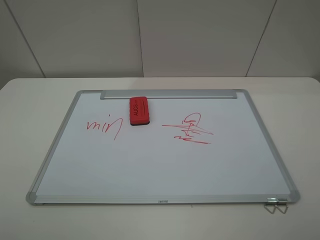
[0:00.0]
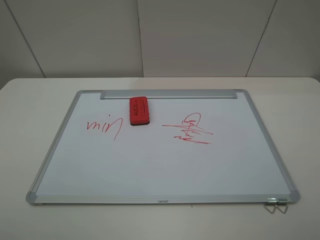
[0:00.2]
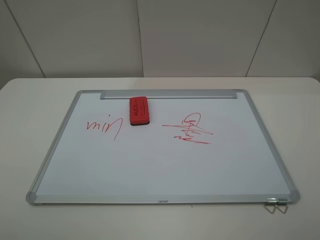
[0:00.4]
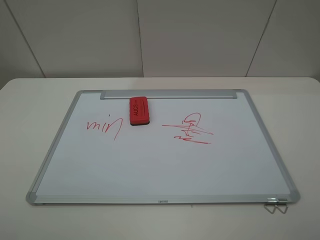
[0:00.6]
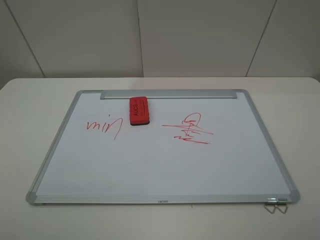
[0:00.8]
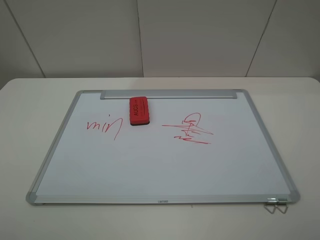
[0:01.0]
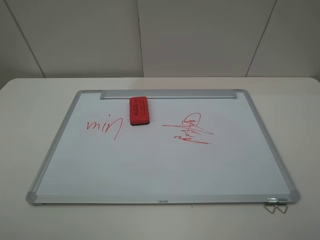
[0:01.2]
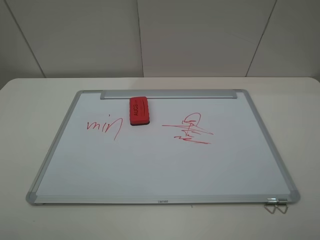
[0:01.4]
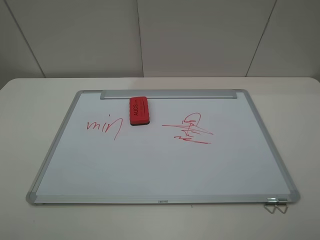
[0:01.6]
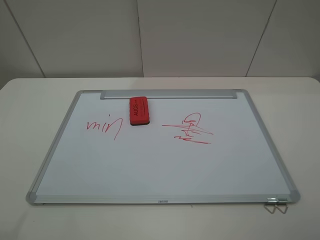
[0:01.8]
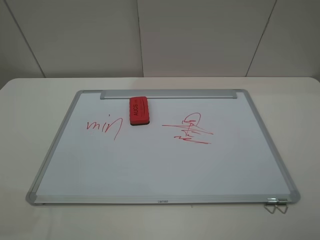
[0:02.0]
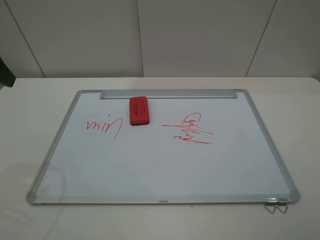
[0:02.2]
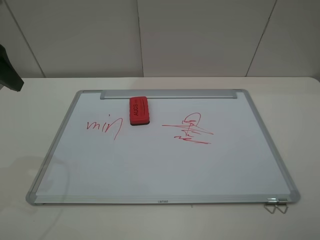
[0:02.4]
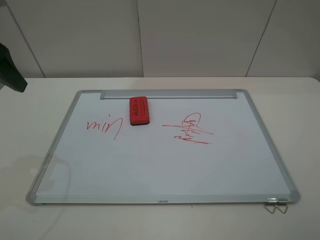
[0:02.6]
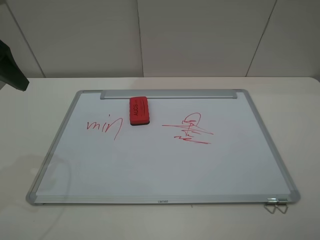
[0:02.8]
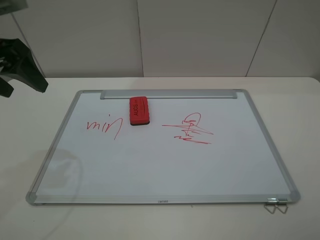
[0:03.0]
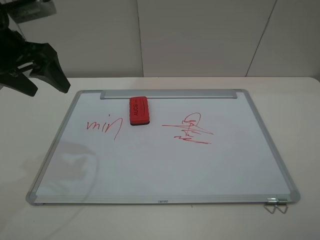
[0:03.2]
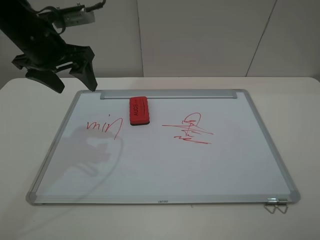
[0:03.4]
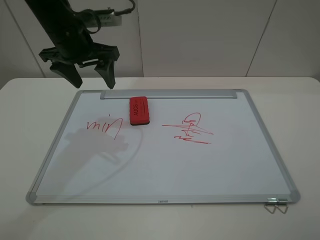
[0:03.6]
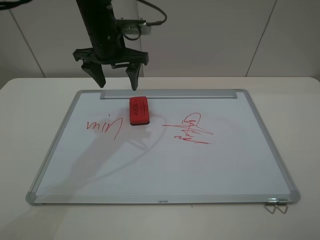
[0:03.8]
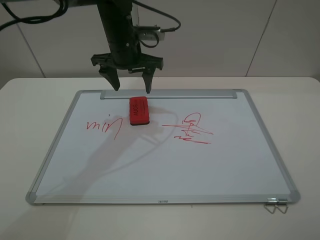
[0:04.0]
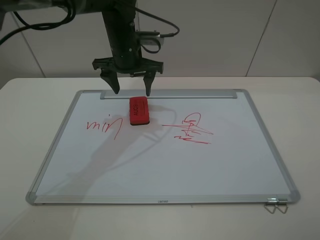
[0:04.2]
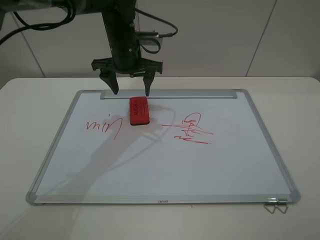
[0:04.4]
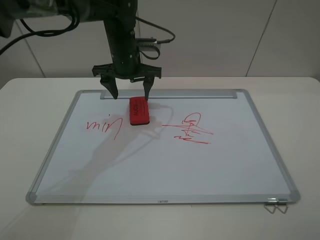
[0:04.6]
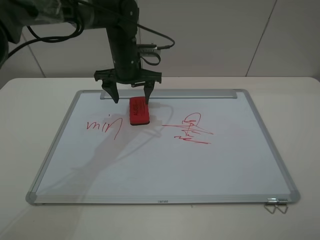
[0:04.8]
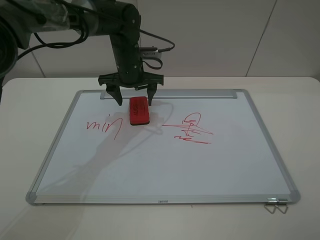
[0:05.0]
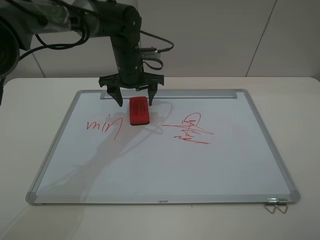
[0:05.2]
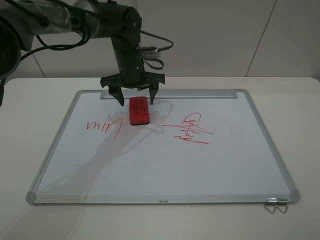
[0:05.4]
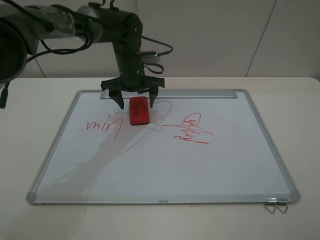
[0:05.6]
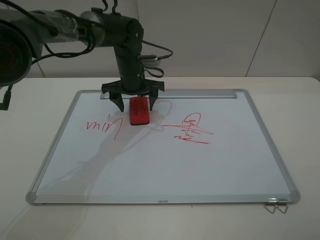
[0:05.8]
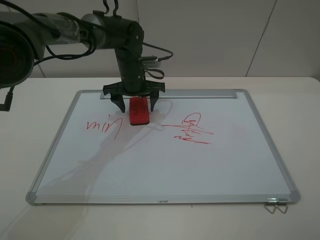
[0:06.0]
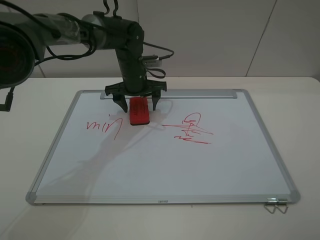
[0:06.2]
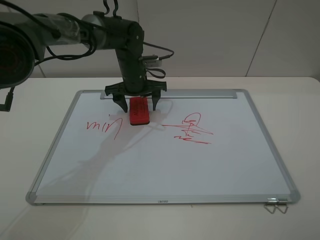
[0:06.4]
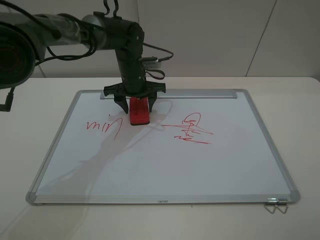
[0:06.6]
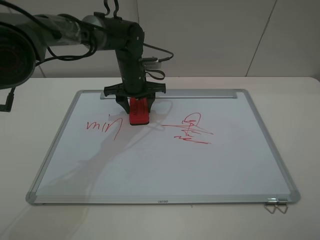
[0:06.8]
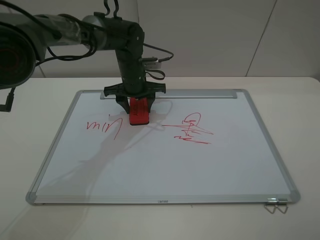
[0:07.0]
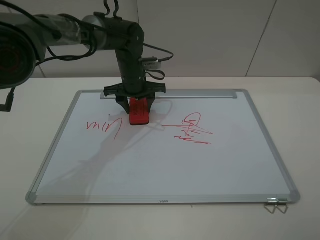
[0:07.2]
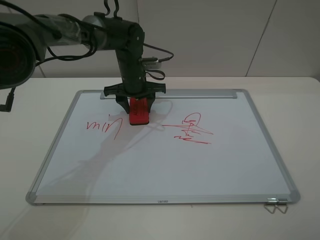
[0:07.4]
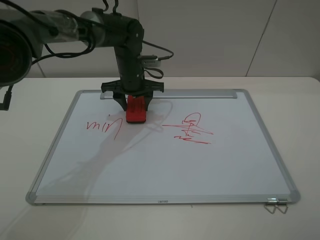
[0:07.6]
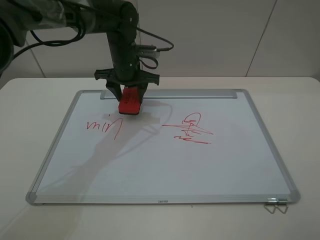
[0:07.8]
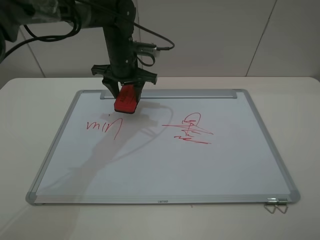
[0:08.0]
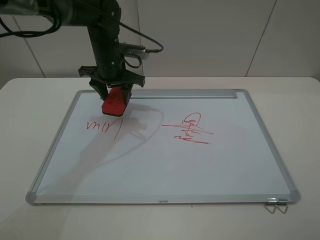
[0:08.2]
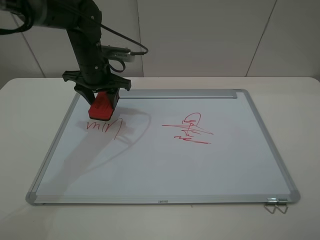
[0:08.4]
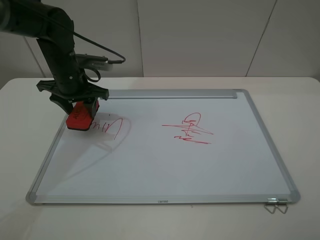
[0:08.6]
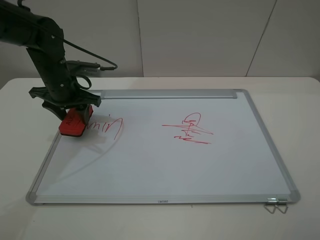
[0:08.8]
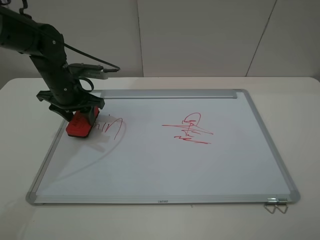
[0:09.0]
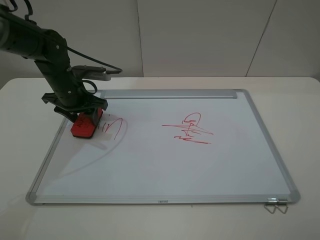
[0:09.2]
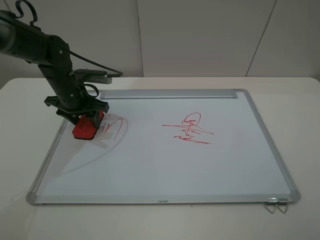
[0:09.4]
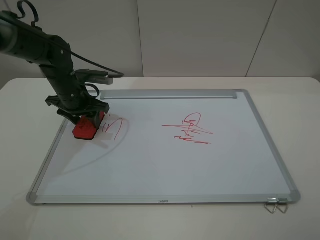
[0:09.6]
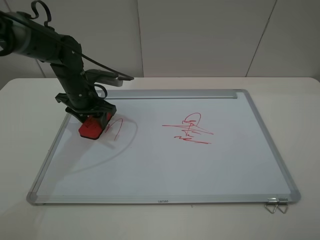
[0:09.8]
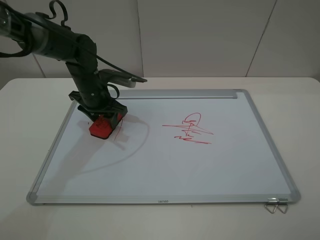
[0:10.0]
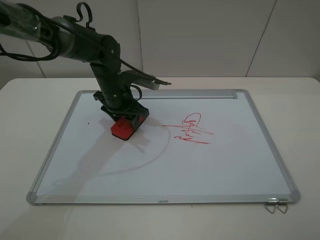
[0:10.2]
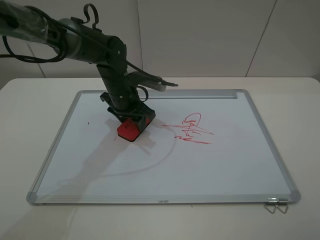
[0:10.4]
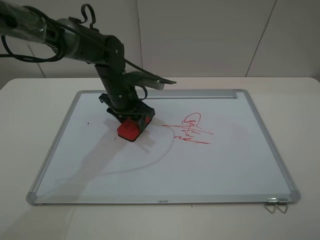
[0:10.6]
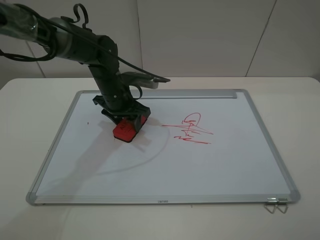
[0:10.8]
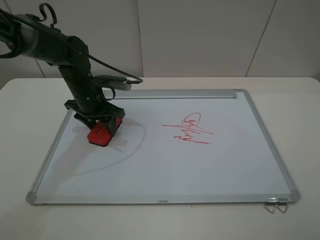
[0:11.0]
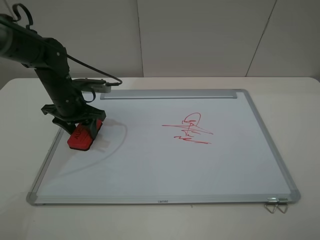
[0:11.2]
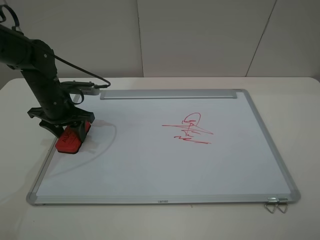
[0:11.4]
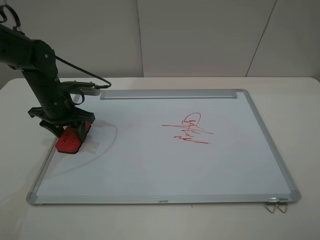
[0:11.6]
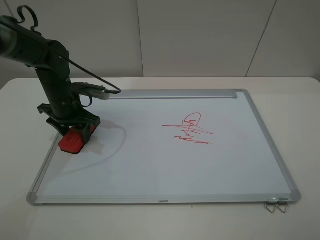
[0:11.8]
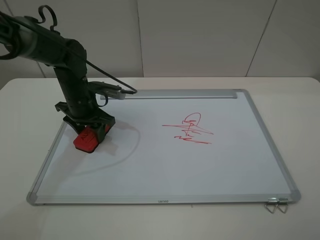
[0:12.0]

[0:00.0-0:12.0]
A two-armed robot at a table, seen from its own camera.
Step, 0:00.0 to 0:06.8: Grasp the eraser with the left gripper.
0:01.6 to 0:03.0: The left gripper travels forward by approximately 20 cm.
0:03.0 to 0:04.4: The left gripper heads to the right, forward and downward, covering roughly 25 cm.
0:04.4 to 0:06.0: The left gripper shifts some 10 cm downward.
0:06.0 to 0:07.6: The left gripper closes.
0:07.6 to 0:09.0: The left gripper shifts roughly 15 cm to the left and backward.
0:09.0 to 0:10.4: The left gripper goes some 10 cm to the right.
0:10.4 to 0:12.0: The left gripper shifts about 10 cm to the left.

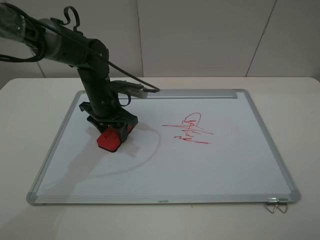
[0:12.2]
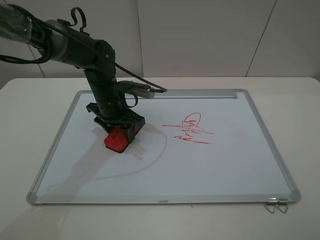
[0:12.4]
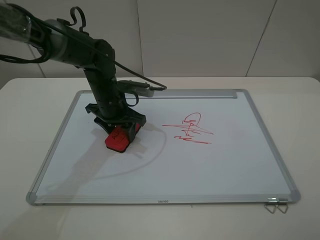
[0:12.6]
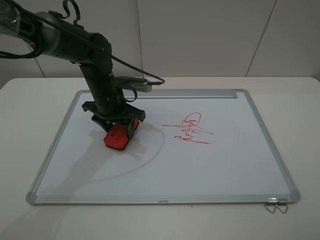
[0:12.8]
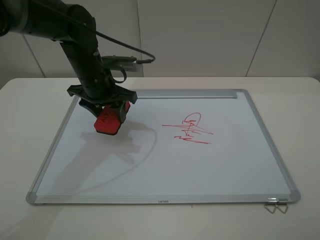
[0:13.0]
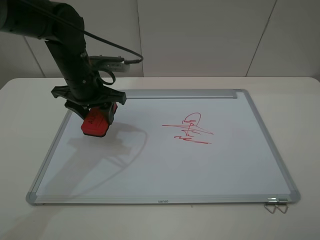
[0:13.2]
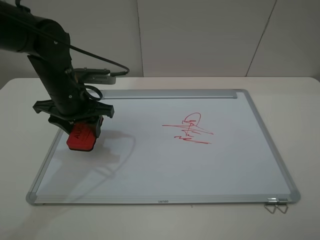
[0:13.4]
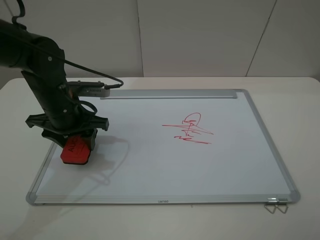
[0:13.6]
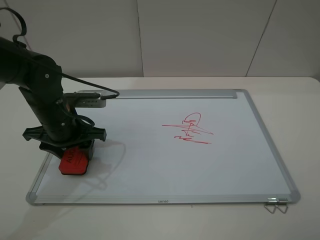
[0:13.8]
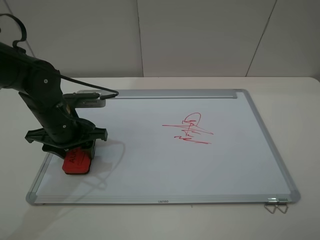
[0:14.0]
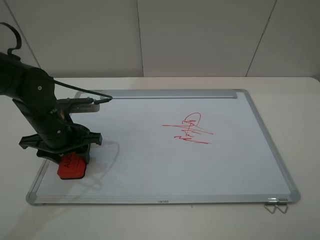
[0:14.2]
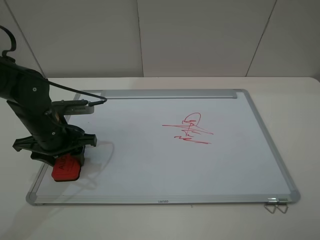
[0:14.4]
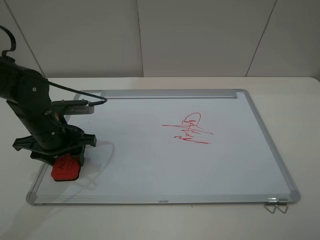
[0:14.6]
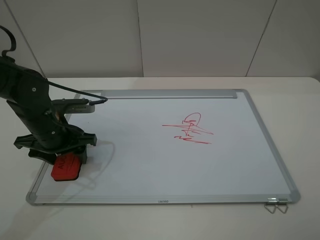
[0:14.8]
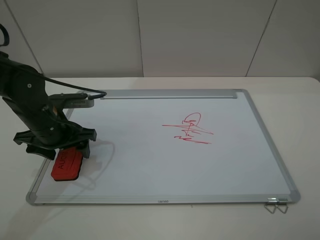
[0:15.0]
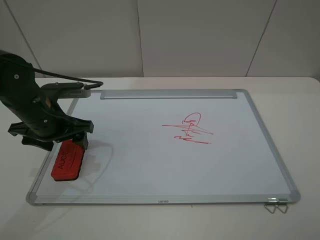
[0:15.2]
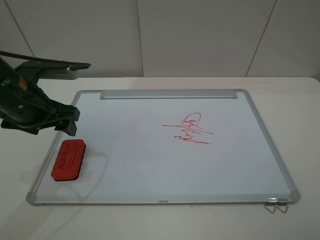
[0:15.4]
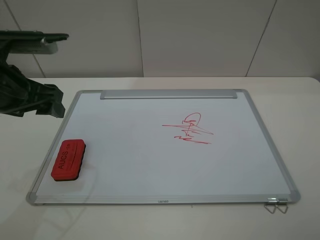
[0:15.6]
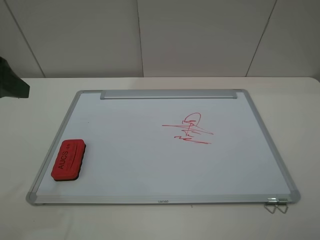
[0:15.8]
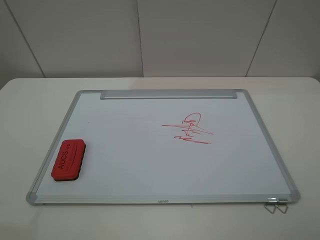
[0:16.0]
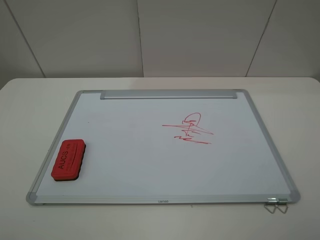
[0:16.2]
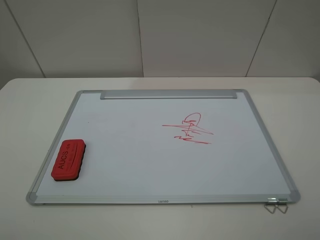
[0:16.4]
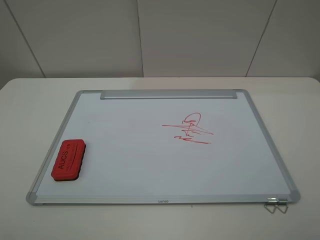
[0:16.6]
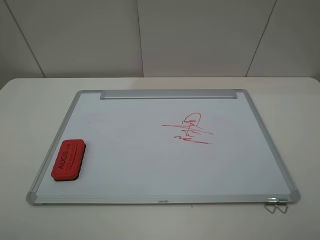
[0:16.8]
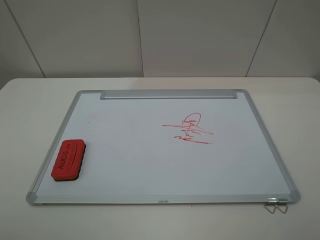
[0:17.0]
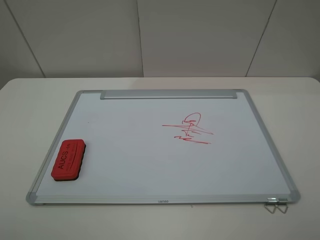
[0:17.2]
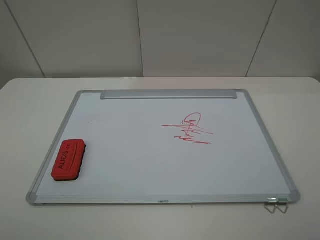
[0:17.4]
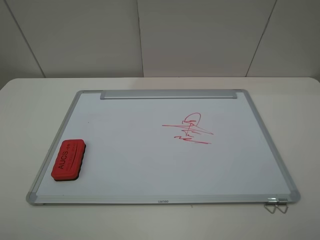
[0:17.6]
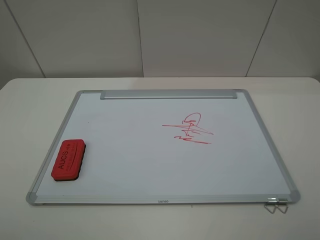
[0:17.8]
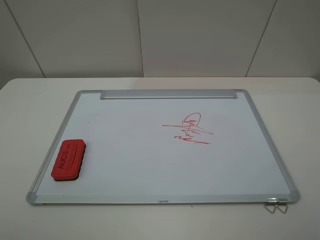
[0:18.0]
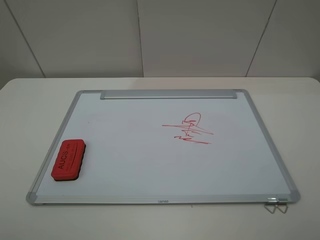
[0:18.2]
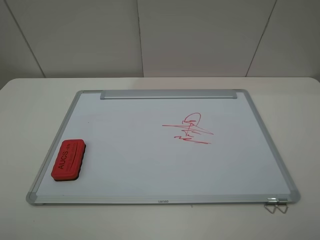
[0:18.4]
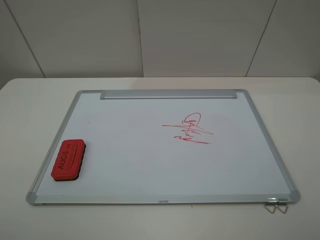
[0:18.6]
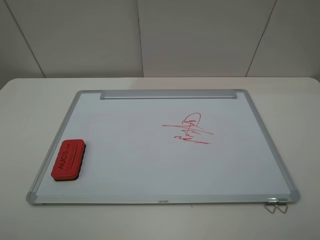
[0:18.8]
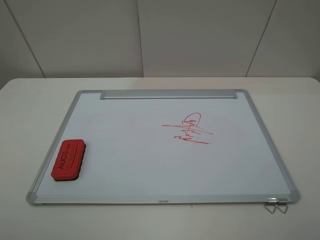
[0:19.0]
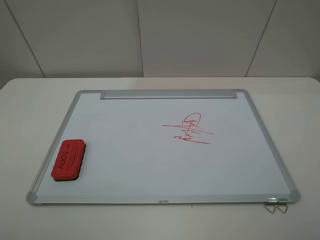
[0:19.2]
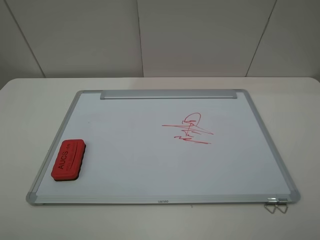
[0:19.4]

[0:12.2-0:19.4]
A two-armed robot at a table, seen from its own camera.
Step, 0:13.0 to 0:15.0: Place the eraser with the left gripper.
0:12.2 to 0:13.6: The left gripper moves backward and to the left, about 10 cm.
0:13.6 to 0:15.0: The left gripper opens up.
0:15.0 to 0:16.6: The left gripper heads backward and upward, covering approximately 30 cm.

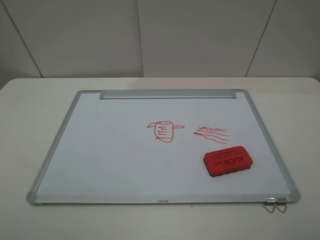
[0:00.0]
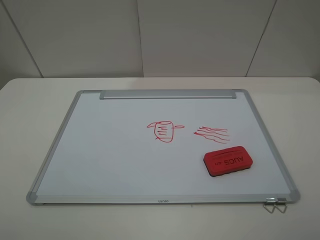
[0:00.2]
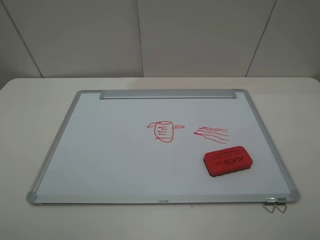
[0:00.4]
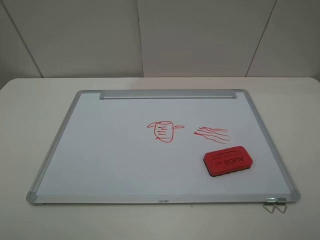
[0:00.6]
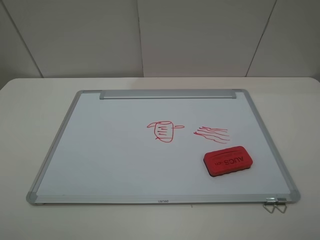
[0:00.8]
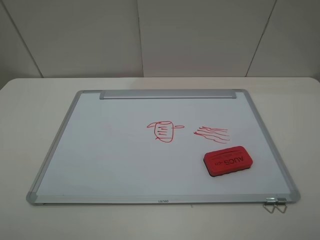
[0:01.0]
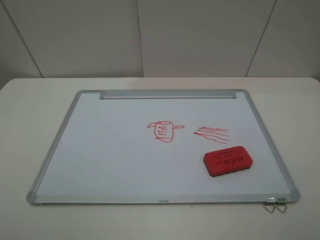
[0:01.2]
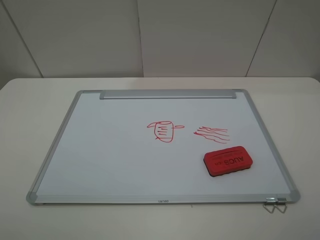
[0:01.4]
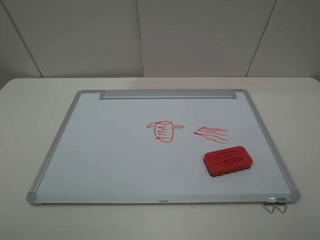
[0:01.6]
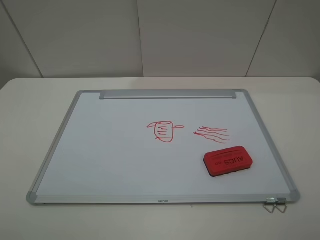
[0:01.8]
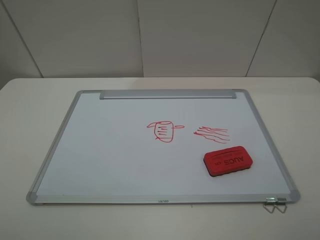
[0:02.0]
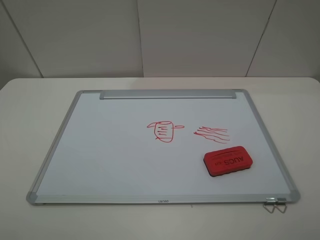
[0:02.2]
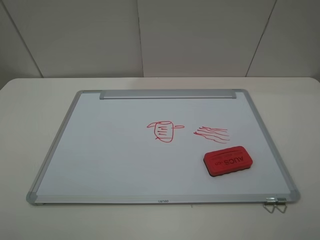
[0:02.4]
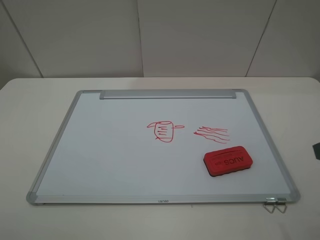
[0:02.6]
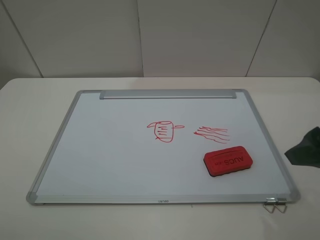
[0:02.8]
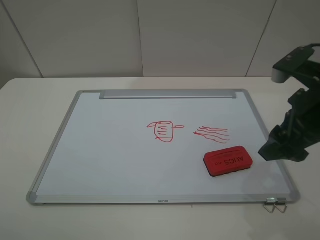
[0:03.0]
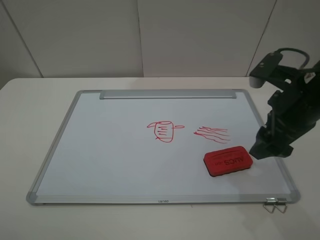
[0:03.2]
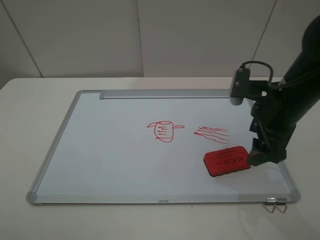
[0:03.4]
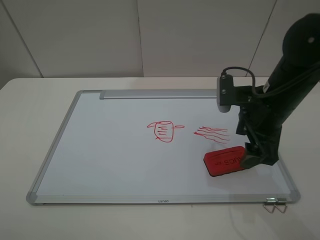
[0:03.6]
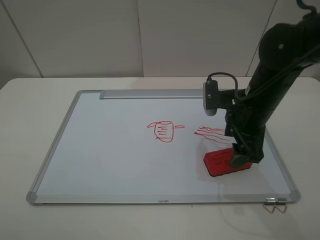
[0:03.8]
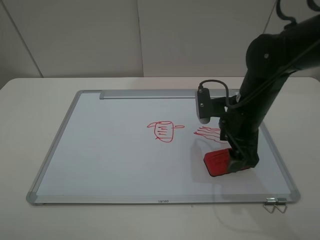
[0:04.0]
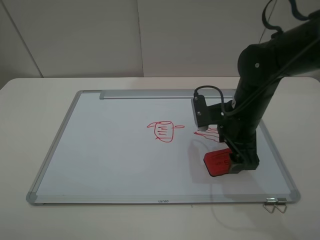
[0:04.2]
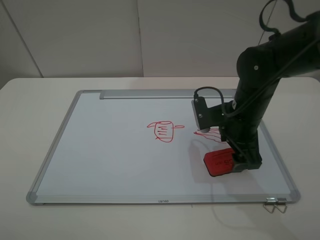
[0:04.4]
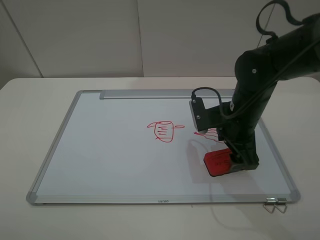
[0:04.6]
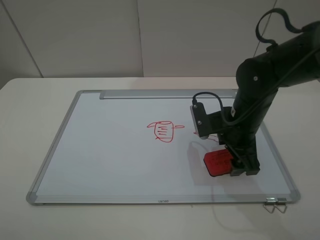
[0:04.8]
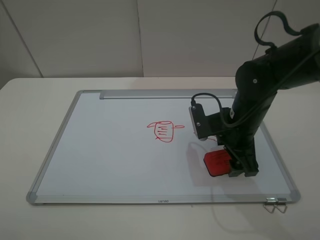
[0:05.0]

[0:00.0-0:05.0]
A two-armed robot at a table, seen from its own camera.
0:00.0 to 0:01.6: The two grippers keep their place.
0:01.6 to 0:03.4: The right gripper moves forward, roughly 25 cm.
0:03.4 to 0:05.0: The right gripper shifts roughly 5 cm downward.
